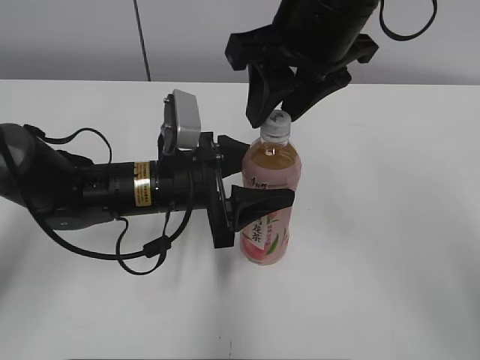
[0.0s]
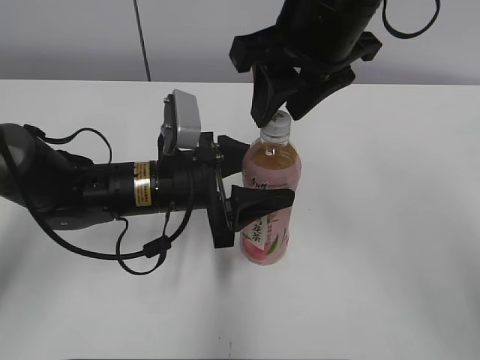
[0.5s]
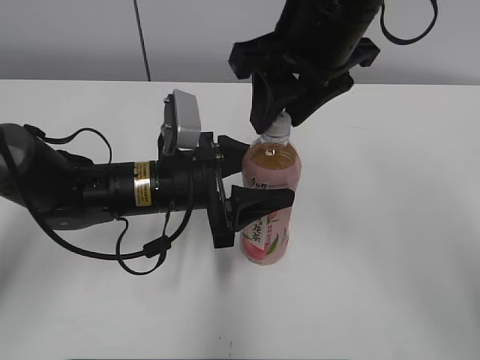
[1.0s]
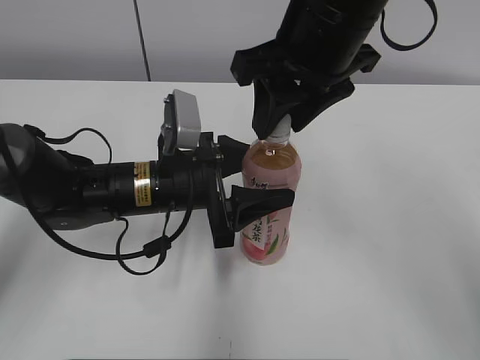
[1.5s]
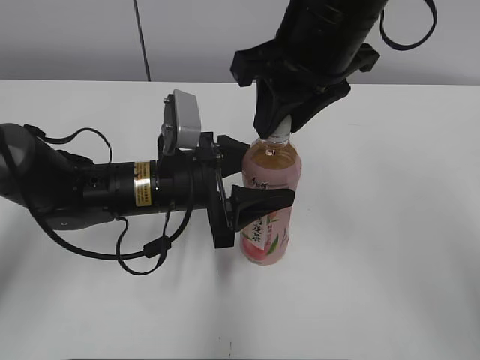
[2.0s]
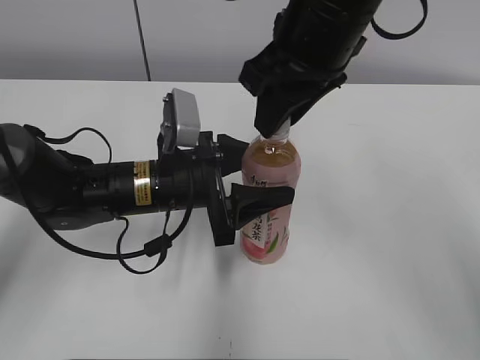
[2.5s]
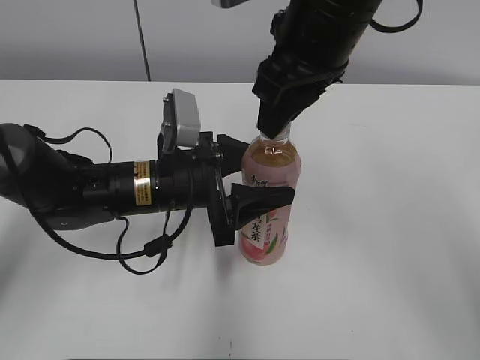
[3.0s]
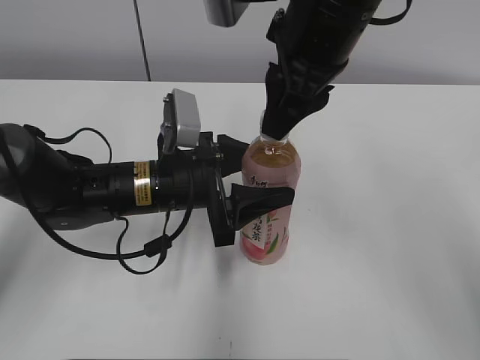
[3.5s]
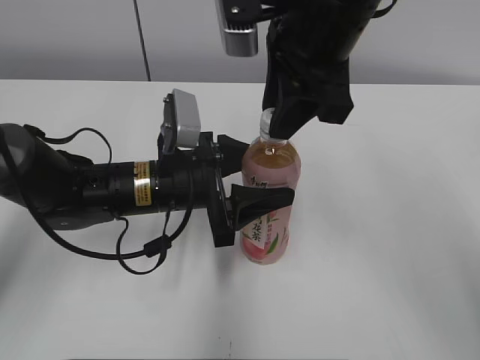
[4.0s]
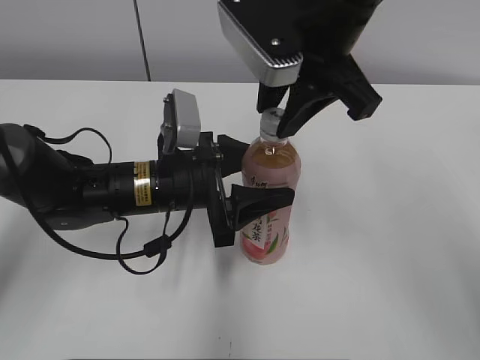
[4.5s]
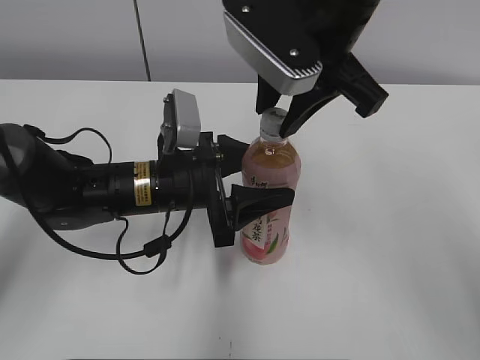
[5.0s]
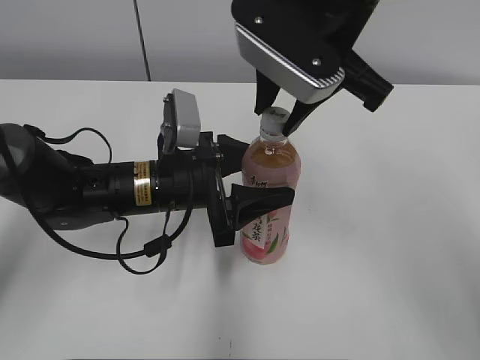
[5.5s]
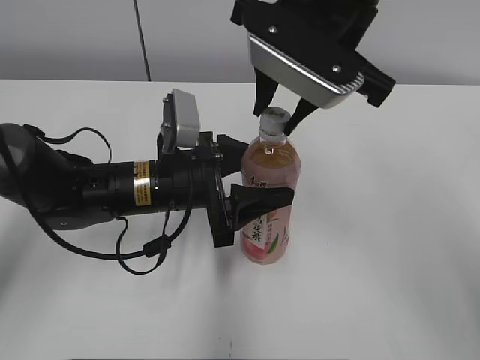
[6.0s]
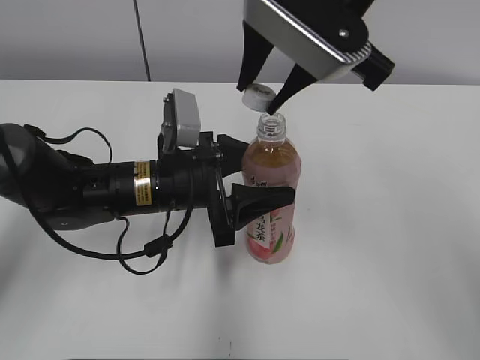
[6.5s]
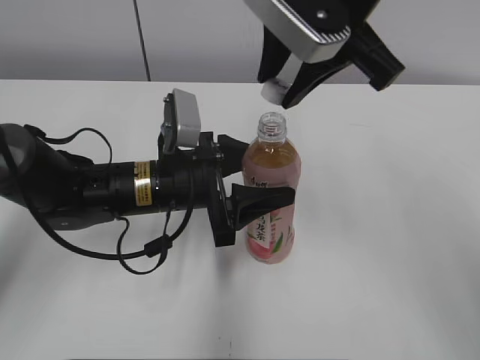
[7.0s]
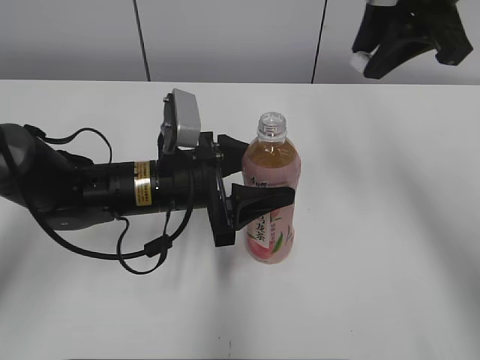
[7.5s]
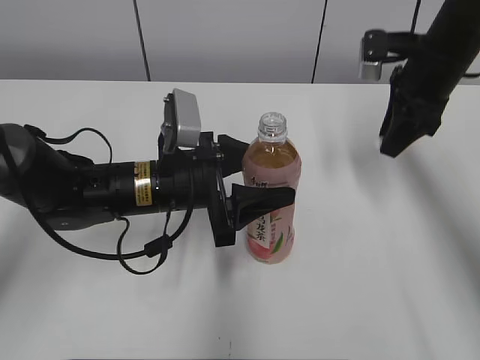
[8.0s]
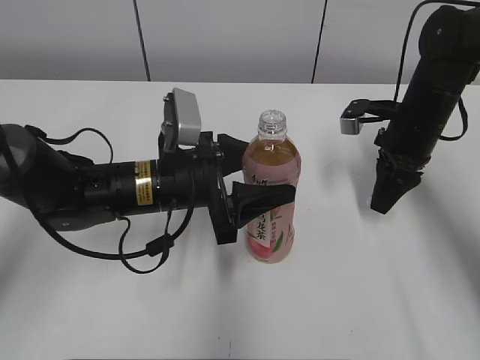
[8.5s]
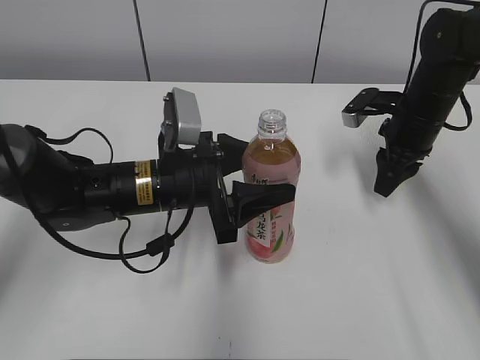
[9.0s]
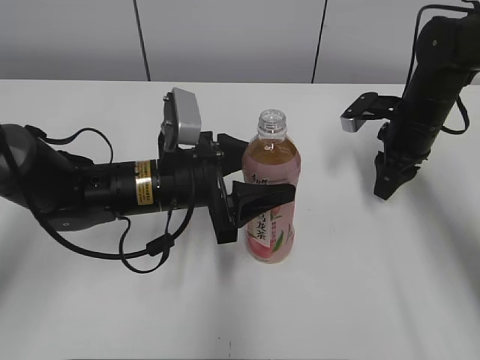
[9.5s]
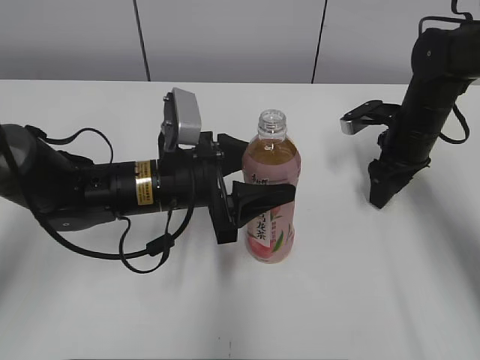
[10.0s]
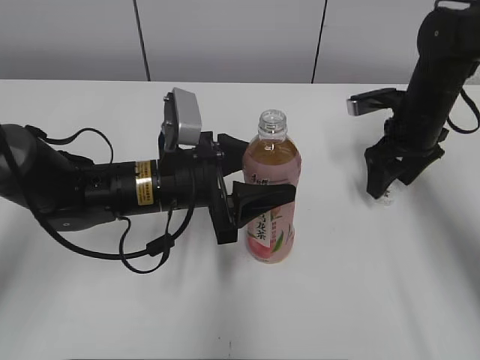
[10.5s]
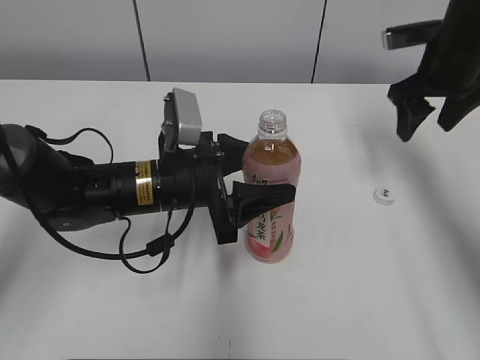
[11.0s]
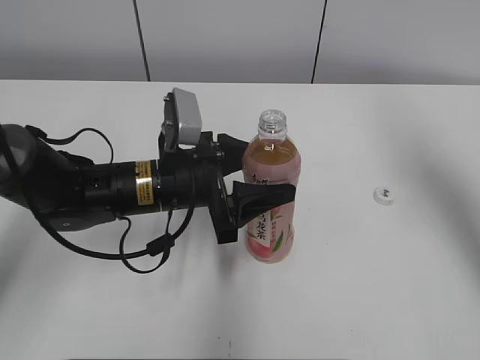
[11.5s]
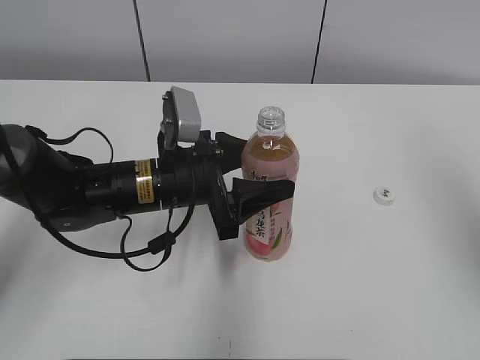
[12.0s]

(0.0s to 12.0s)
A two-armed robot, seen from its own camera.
Step, 6.5s - 10.0s: Place the bottle cap on the right.
0.0s - 2.0s: Both grippers stay about where they are.
6.0s - 8.0s: The right gripper moves to the right, forward and downward, roughly 20 cm.
8.0s - 10.0s: The right gripper moves downward, about 10 cm, and opens.
10.0s - 12.0s: The right gripper moves upward and backward, about 35 cm, and opens, then closes again.

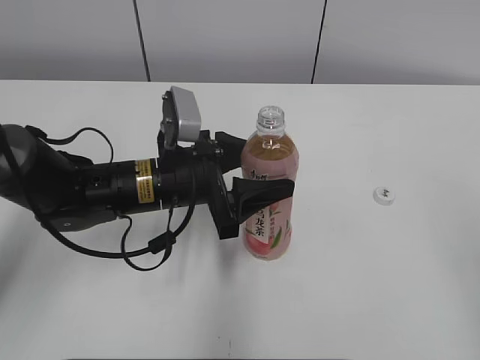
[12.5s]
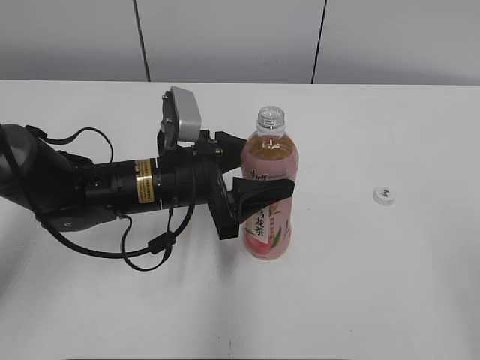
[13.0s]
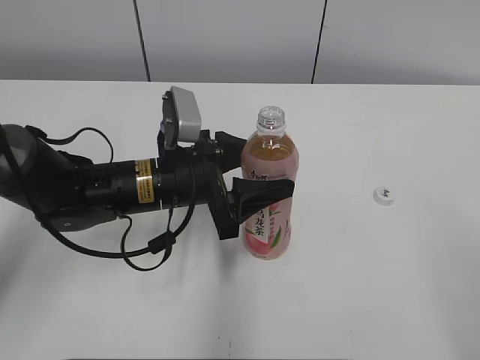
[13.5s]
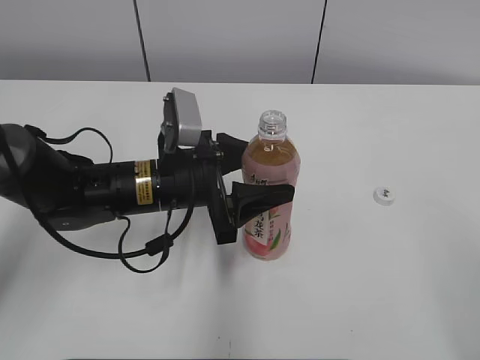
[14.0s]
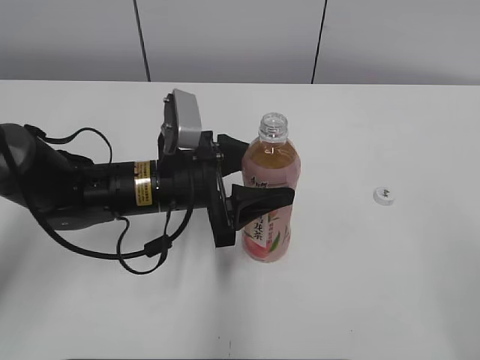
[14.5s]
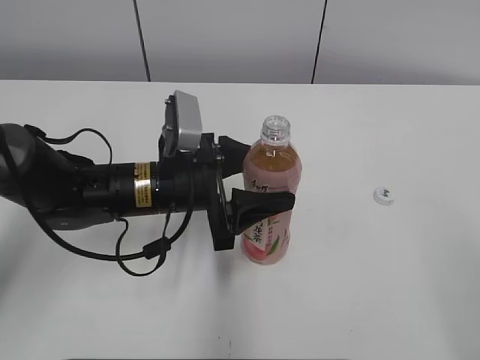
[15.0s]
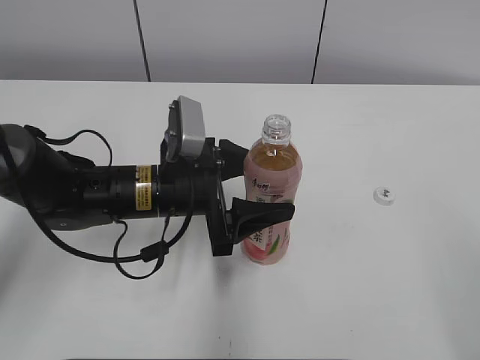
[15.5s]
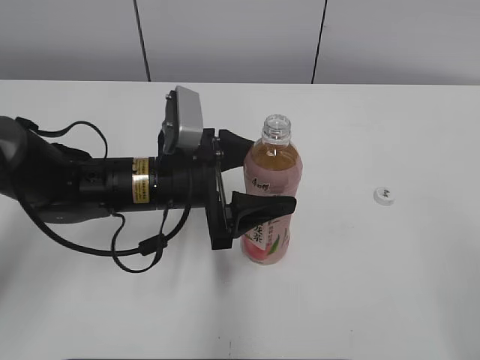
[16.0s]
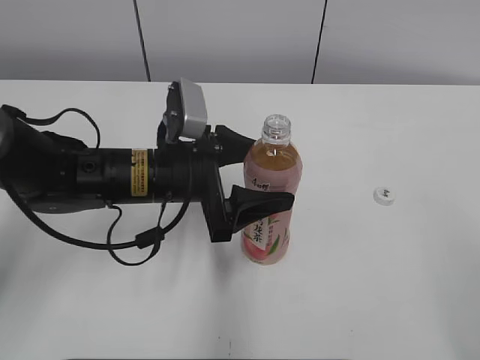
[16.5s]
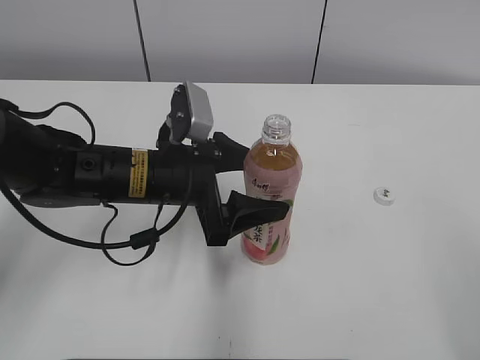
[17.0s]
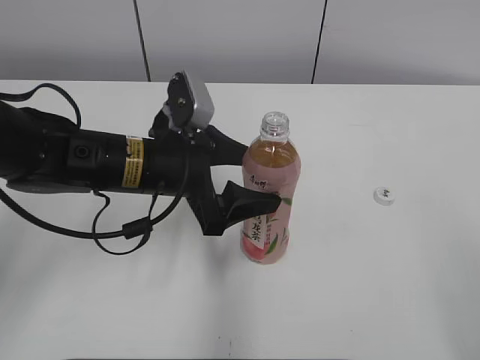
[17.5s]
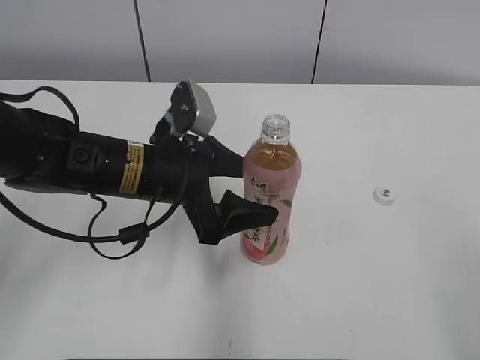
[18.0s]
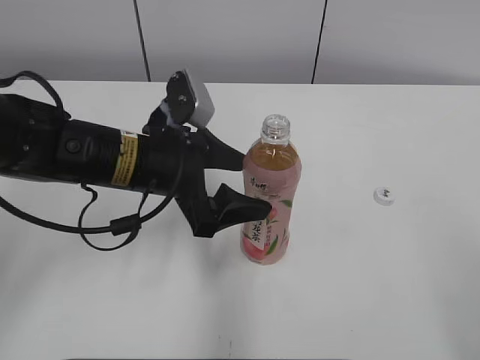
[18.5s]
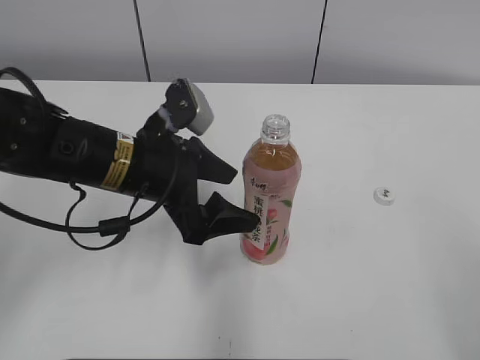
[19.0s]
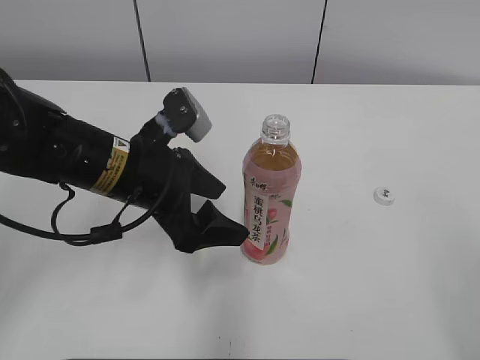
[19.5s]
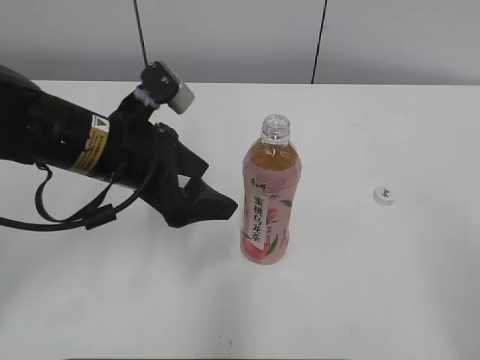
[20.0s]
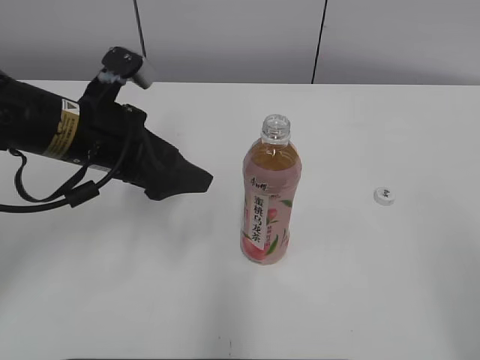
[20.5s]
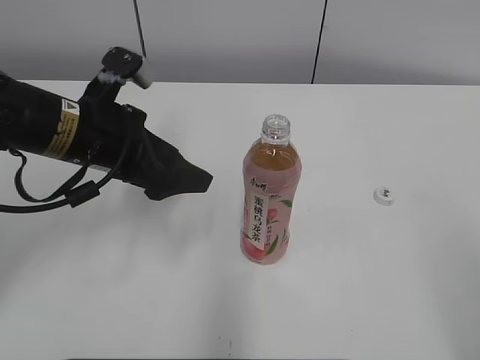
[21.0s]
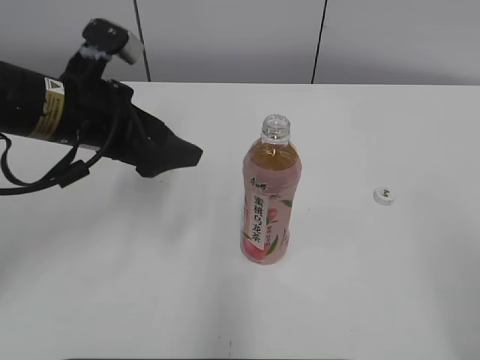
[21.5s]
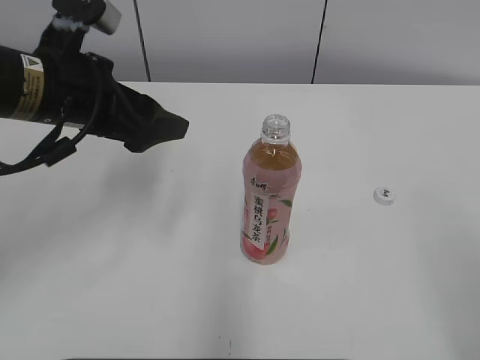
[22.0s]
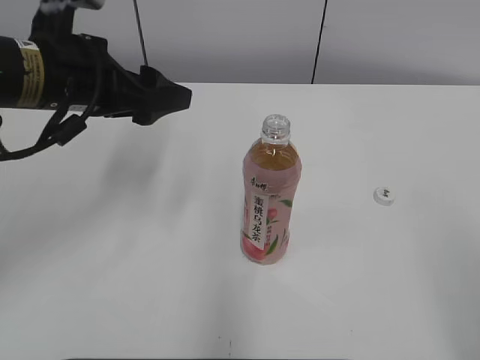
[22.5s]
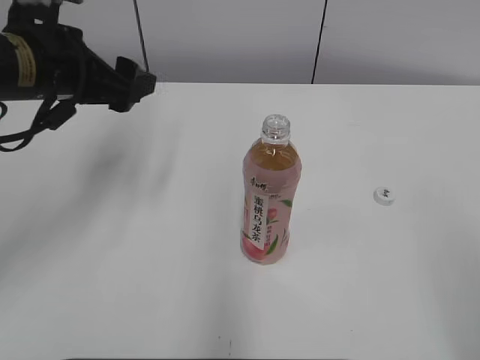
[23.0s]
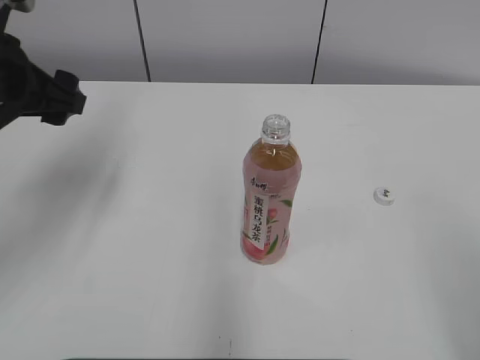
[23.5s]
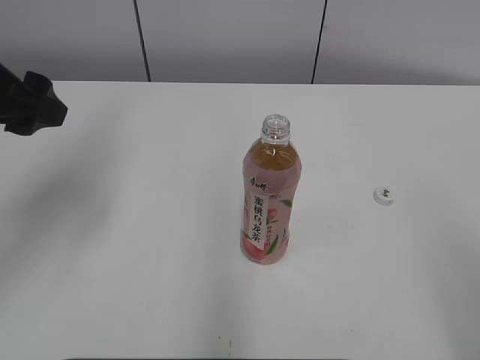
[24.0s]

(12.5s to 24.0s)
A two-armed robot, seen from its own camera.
12.5s - 16.5s: The grippers stay close to where they were, moving slightly.
16.5s - 18.5s: There are only small adjustments of the grippers.
18.5s - 20.0s: The grippers stay close to where they were, moving slightly.
20.0s - 22.0s: The left gripper is displaced upward by some 5 cm.
22.0s - 24.0s: The left gripper goes approximately 10 cm to the left and upward.

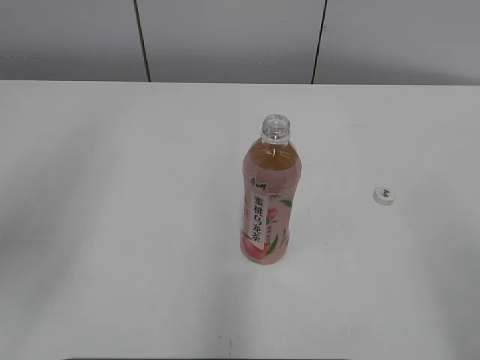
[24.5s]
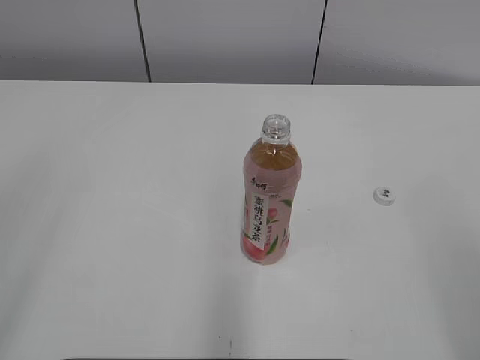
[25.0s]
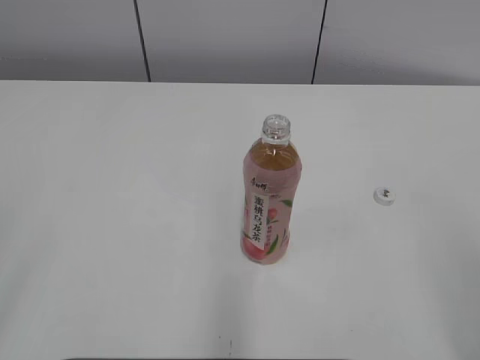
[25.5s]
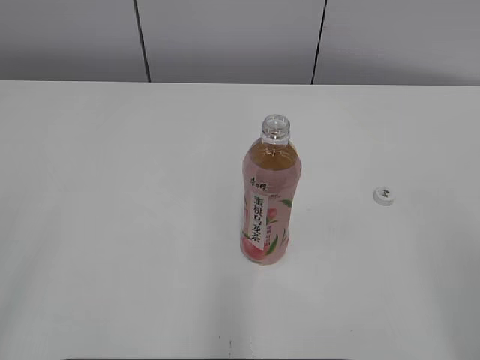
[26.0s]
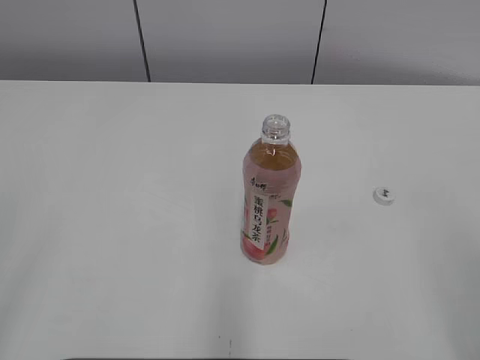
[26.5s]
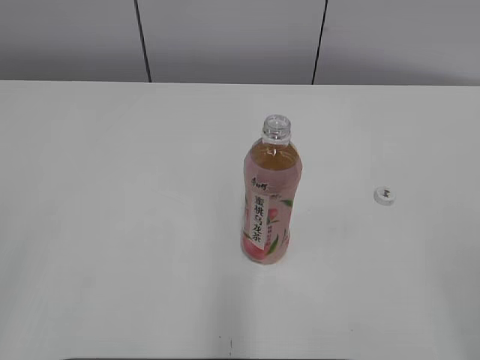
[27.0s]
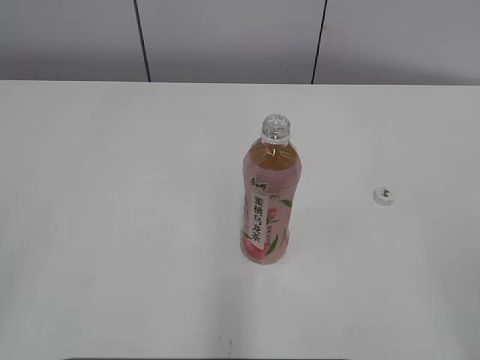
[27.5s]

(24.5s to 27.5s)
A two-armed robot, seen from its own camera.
24.5s - 26.0s: The left gripper shifts approximately 15 cm backward.
